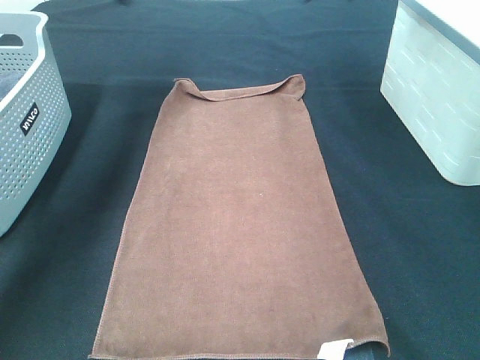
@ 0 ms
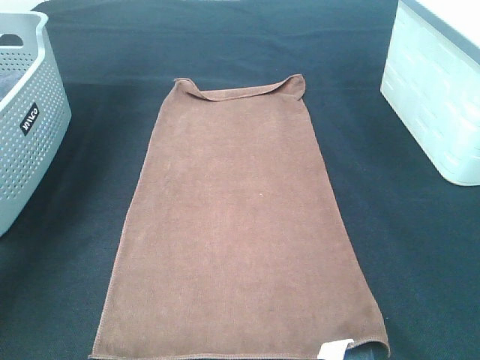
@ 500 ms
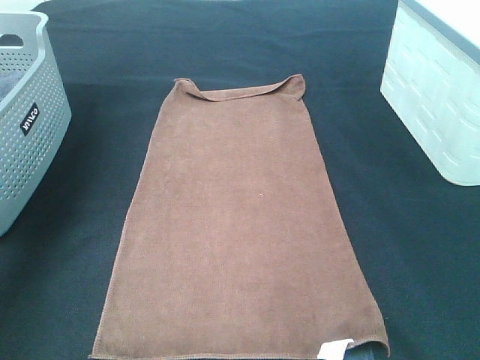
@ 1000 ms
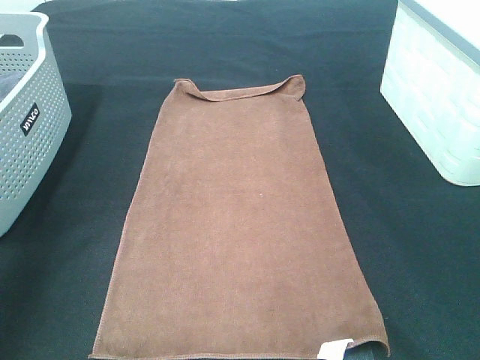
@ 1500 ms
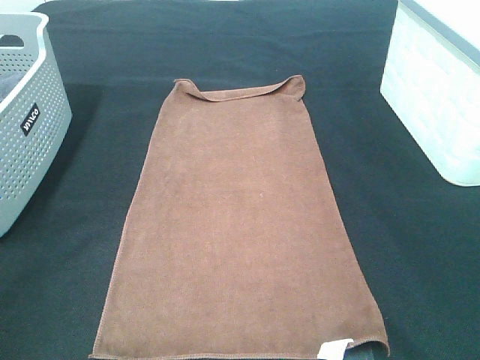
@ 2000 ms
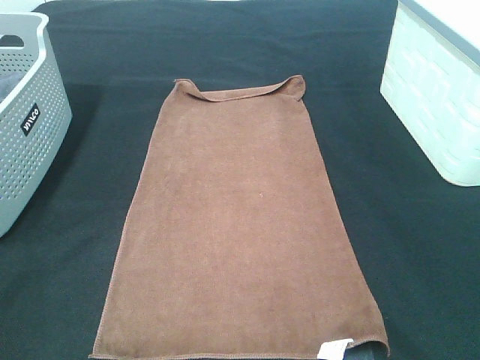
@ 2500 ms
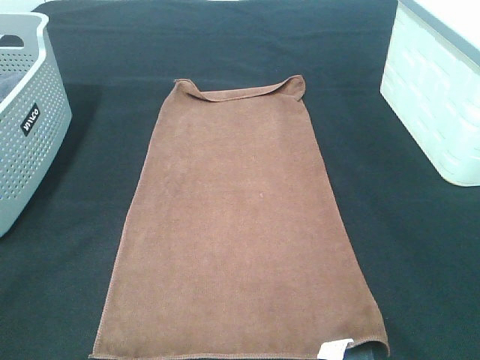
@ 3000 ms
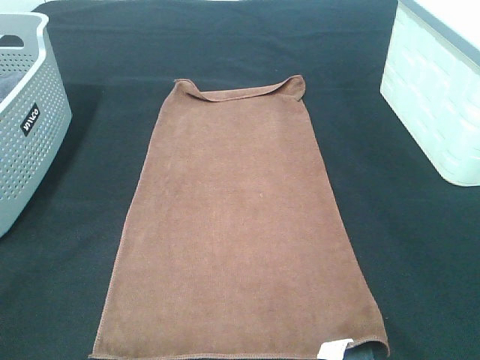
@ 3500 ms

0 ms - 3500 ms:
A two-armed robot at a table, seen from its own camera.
Task of the whole recording: Remove the towel and place it.
0 ms - 2000 ms: Both grippers move backward, some 50 cm.

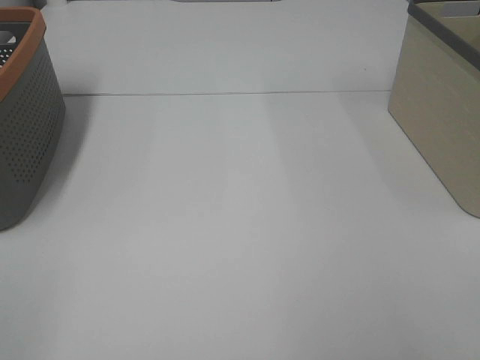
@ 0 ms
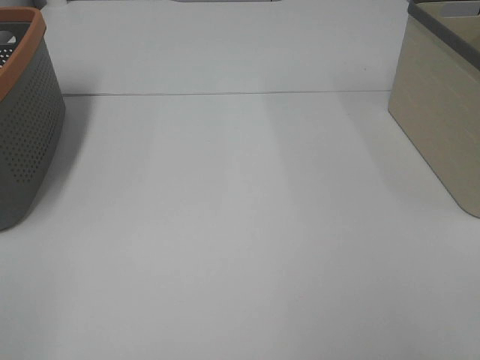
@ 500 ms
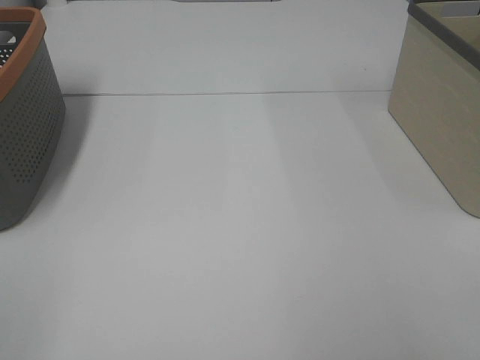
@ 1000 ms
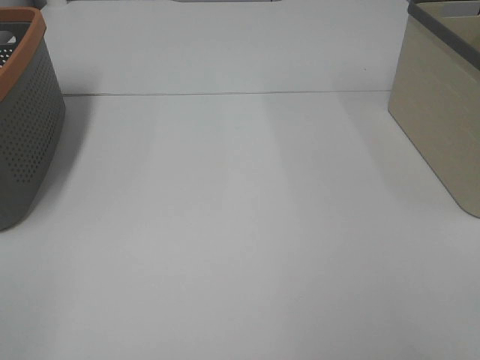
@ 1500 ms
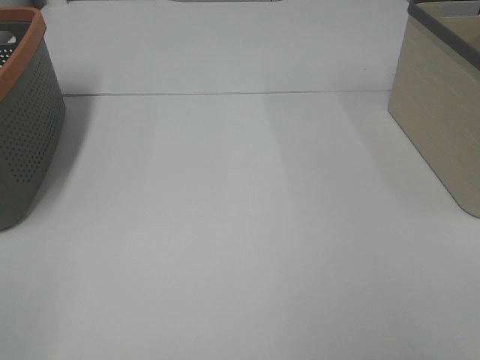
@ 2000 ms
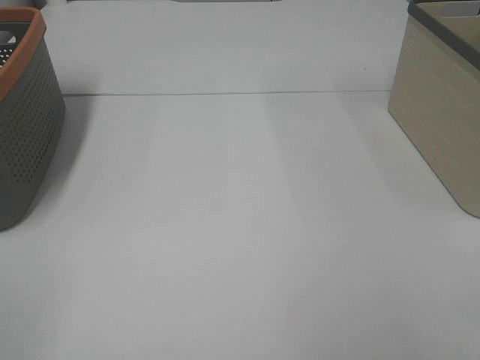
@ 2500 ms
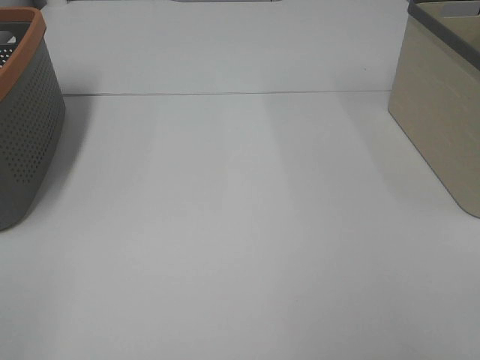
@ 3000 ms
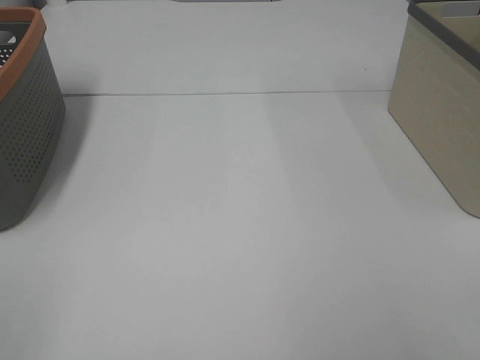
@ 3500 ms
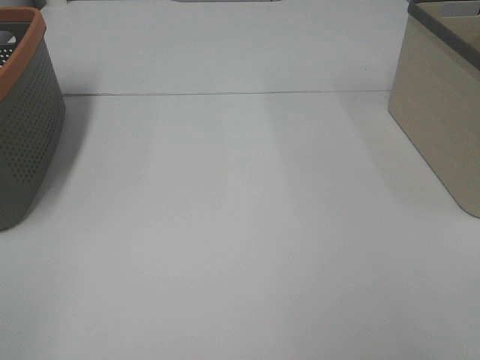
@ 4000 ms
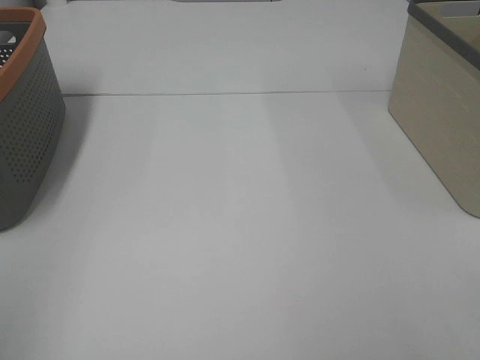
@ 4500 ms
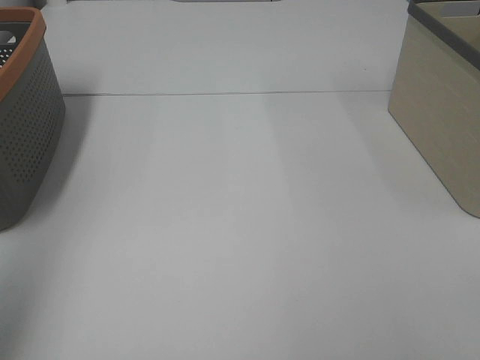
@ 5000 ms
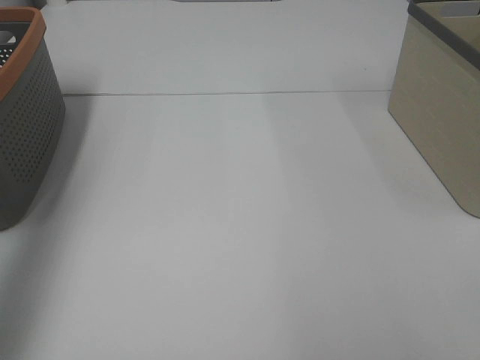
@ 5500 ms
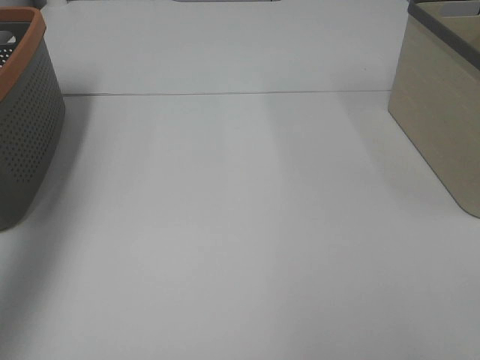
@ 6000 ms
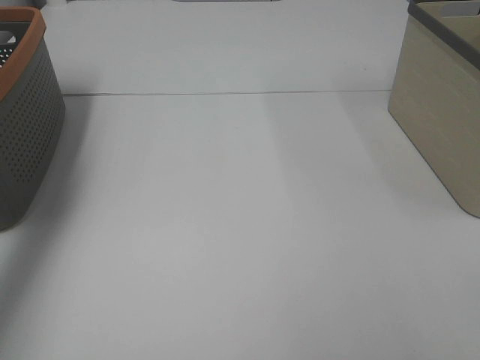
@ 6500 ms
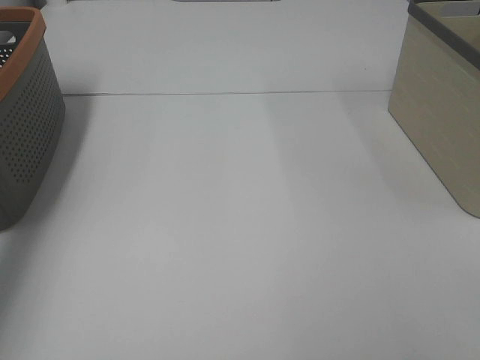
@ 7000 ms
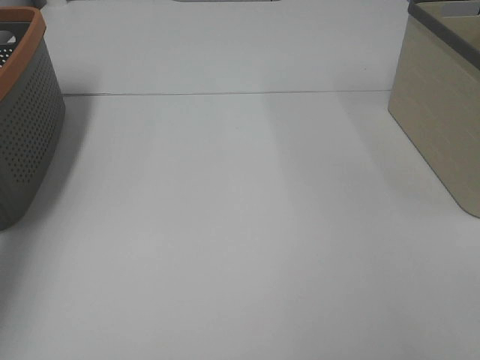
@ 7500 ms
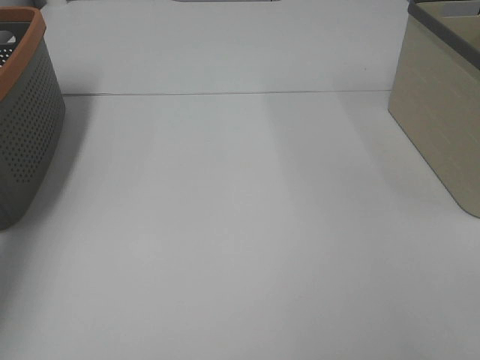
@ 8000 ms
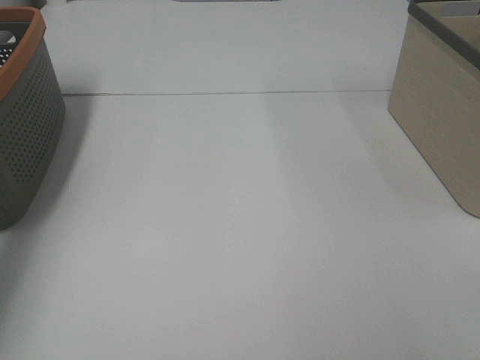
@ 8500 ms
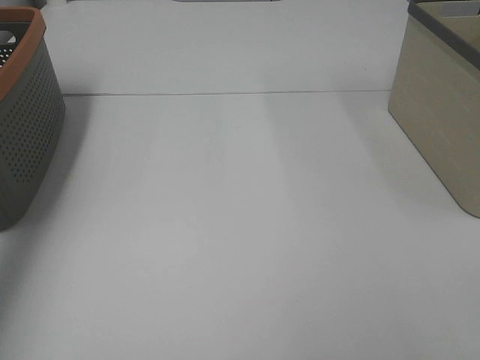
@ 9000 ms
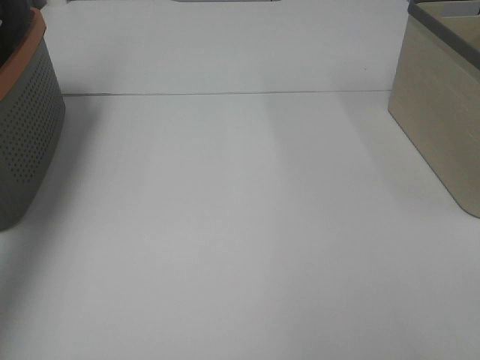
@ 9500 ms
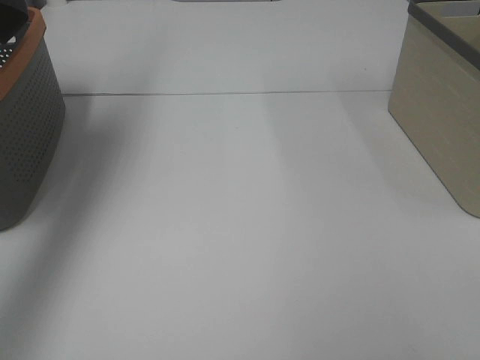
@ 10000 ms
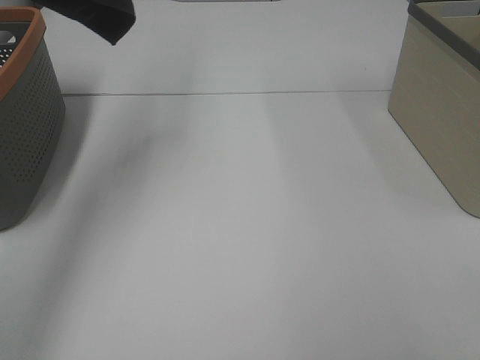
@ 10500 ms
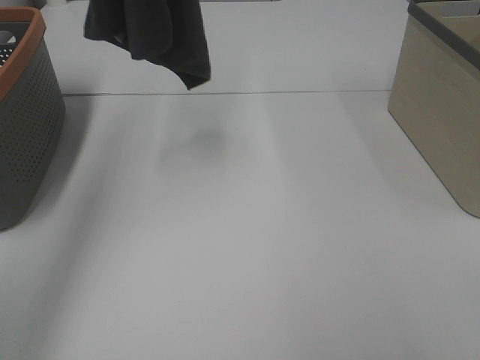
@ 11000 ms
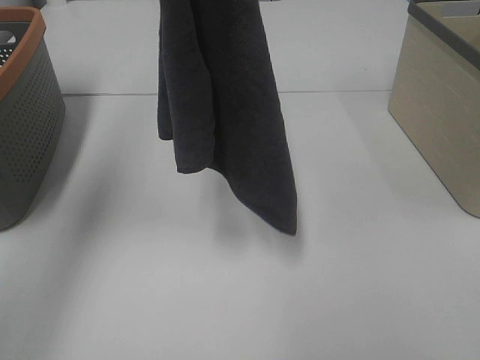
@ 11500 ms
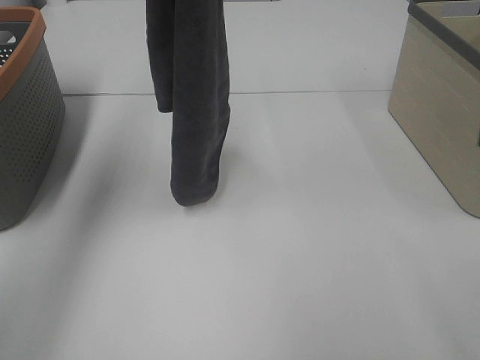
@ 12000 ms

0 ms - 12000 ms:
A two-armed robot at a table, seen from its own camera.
Task of the whole recording: Remove the towel and place it.
0 ms - 4000 ms: Neither gripper changes place.
4000 ms - 6000 ms: The left gripper goes approximately 35 cm forward.
6000 ms - 8000 ms: The left gripper heads downward and forward, covering approximately 20 cm, and closes its fingers.
8000 ms - 10000 ms: The left gripper heads upward, covering about 35 cm.
10000 ms - 12000 ms: The right gripper is displaced forward by roughly 10 cm; the left gripper is displaced to the right and downward by some 15 cm.

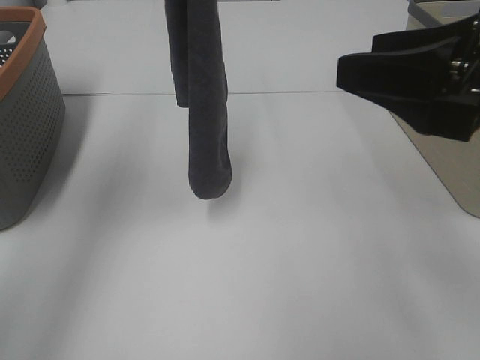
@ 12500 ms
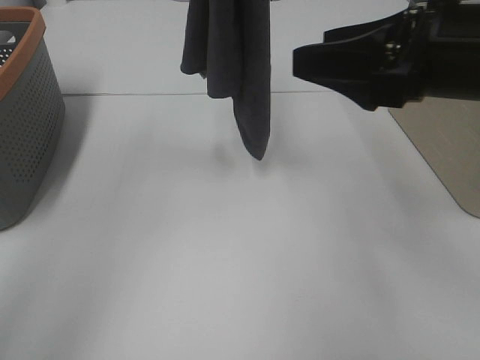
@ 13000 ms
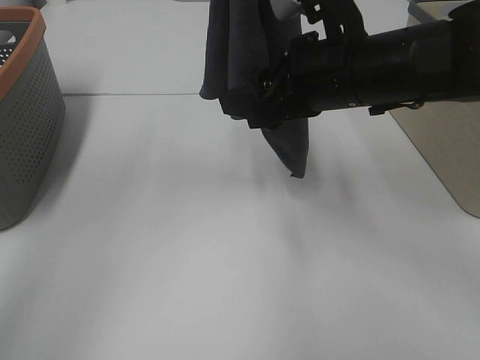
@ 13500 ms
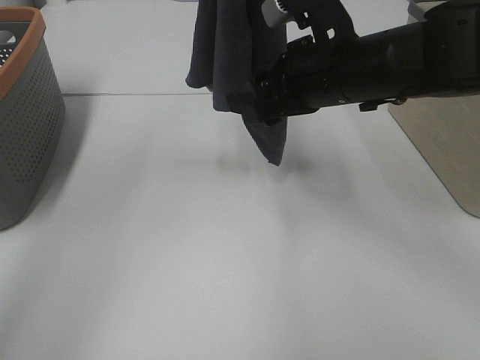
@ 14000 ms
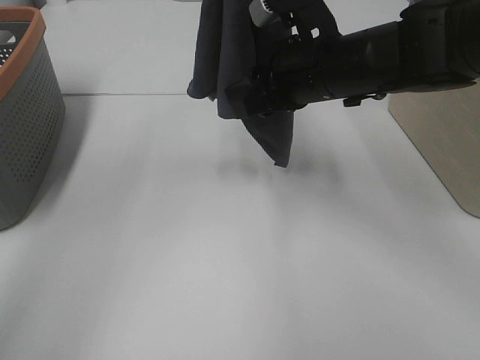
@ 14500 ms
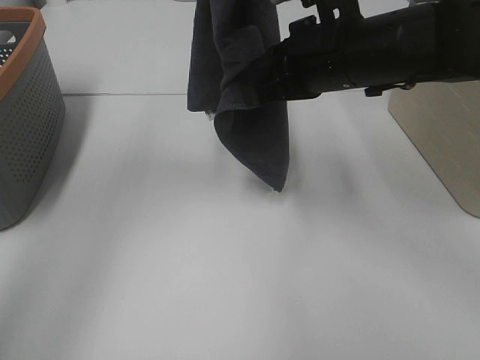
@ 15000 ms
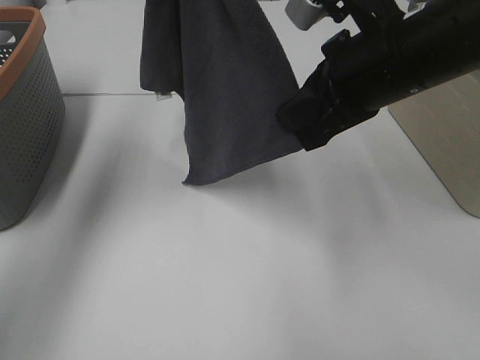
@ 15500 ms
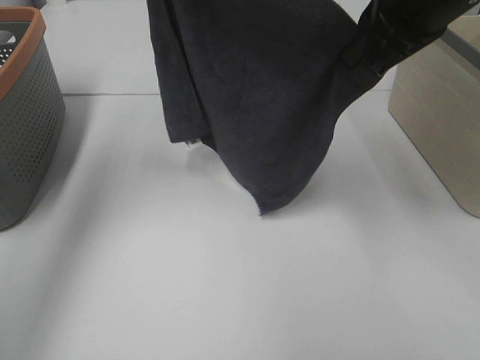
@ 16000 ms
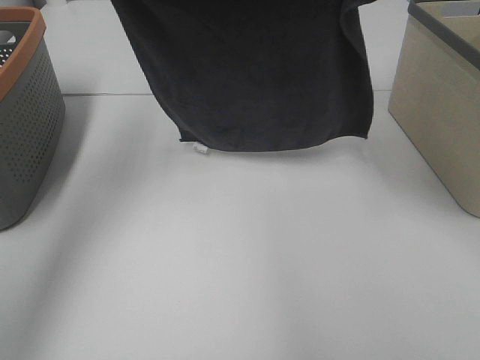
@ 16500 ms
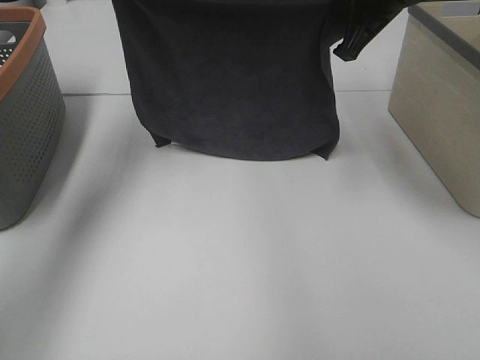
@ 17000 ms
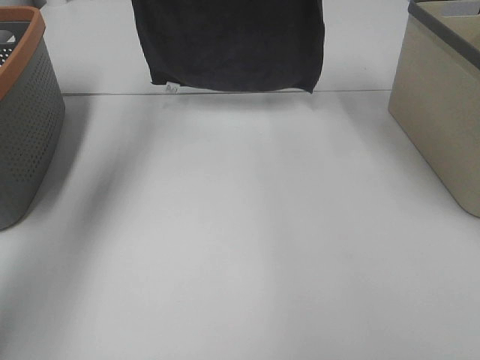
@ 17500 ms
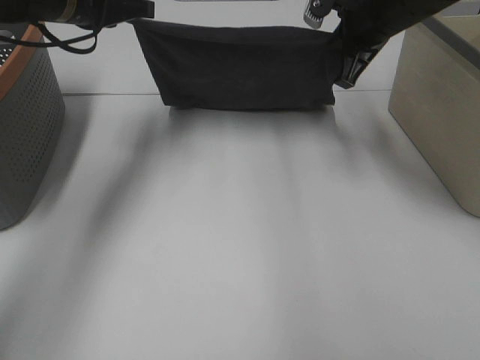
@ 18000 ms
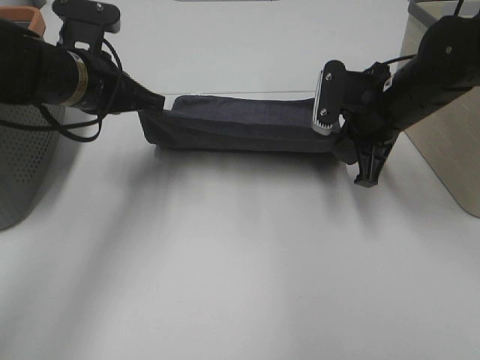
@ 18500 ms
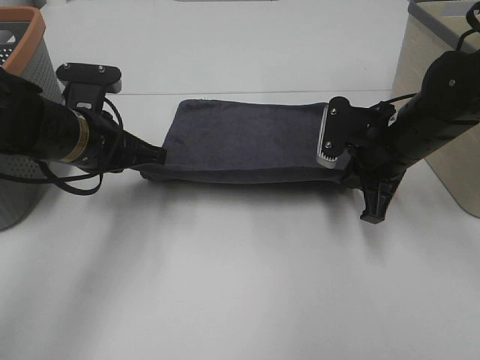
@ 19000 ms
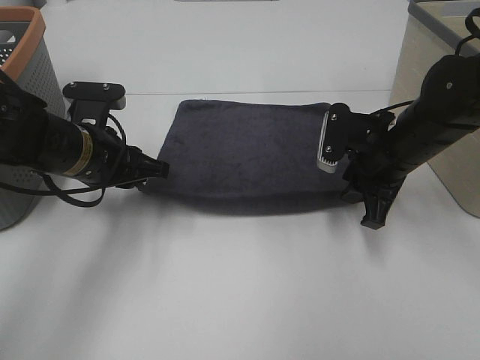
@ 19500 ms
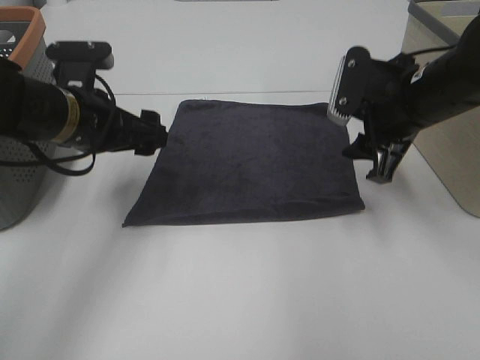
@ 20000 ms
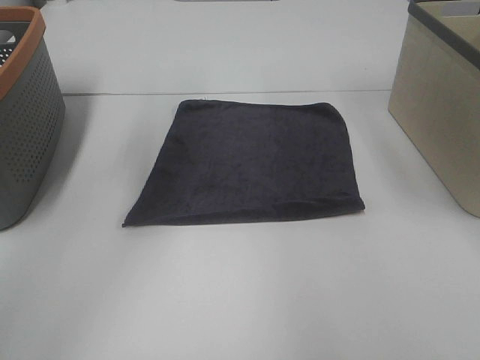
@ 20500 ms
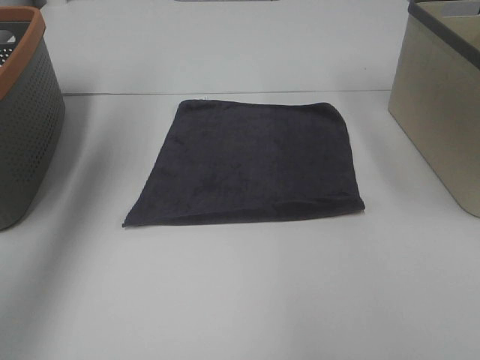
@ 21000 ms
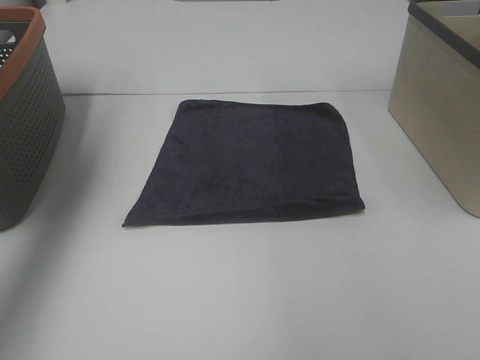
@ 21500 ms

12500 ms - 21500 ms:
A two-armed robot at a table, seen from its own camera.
Task of the whole recording: Remove the towel and place it.
Step, 13500 ms - 15500 ms: Left hand: spread the grey towel flat on the table.
Step, 13500 ms - 15500 ms: Right hand: spread the grey towel flat on the table.
12500 ms - 14500 ms: The right gripper goes about 20 cm forward, to the left and downward; the left gripper moves to the right, some 5 cm.
14500 ms - 17000 ms: The right gripper is displaced upward, to the right and forward by about 10 cm, and closes, while the left gripper heads downward and to the left, covering roughly 20 cm.
17000 ms - 19500 ms: The right gripper shifts approximately 15 cm downward, and opens; the left gripper travels downward and backward by about 20 cm, and opens up.
19500 ms - 21500 ms: The left gripper travels upward and to the left by roughly 35 cm, and opens. The right gripper travels upward by about 30 cm.

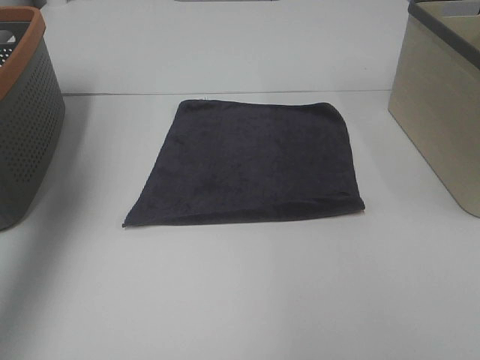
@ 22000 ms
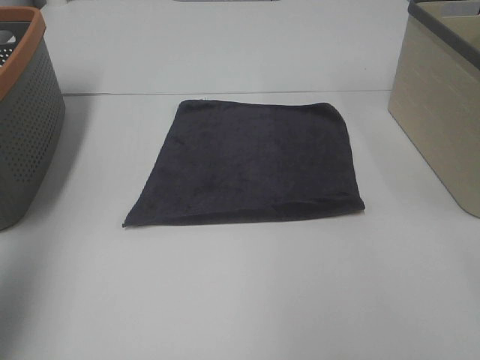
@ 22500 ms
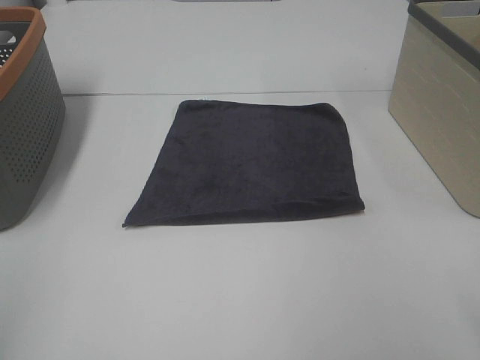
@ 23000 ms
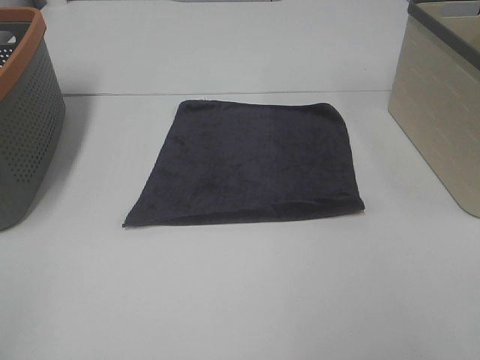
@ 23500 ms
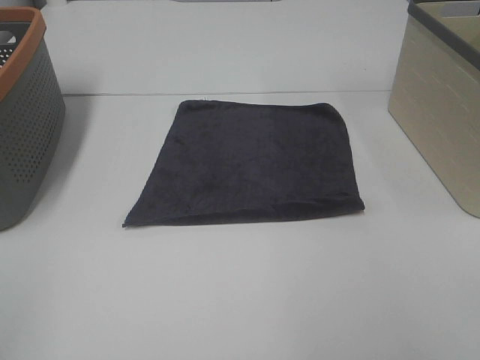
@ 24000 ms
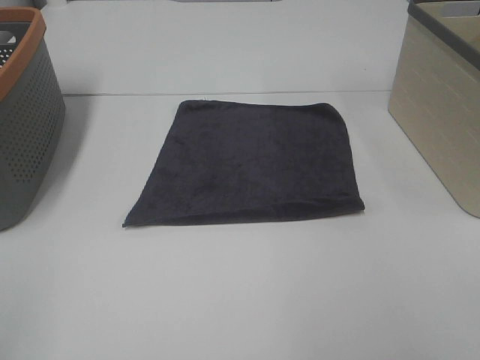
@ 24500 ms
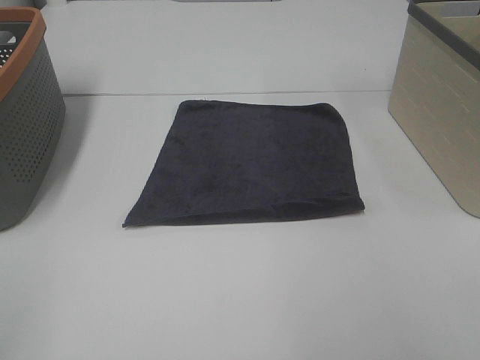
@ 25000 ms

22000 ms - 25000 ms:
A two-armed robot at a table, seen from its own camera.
Task of the whole recording: Remove the towel and place it.
22000 ms - 23500 ms: The left gripper is displaced backward and downward by about 35 cm.
